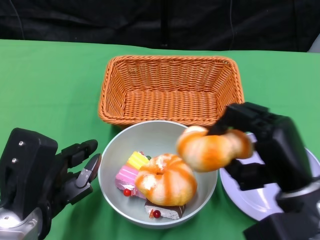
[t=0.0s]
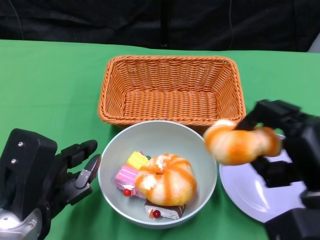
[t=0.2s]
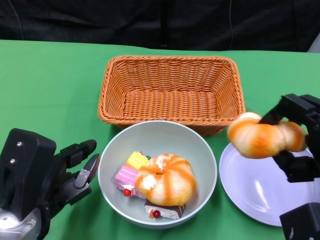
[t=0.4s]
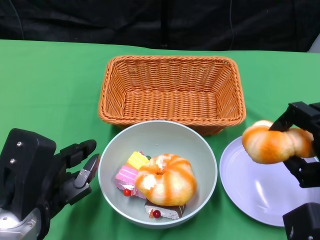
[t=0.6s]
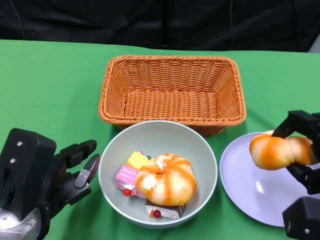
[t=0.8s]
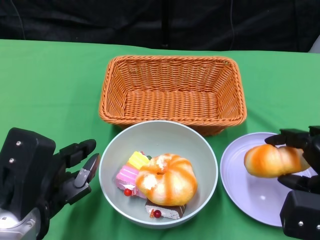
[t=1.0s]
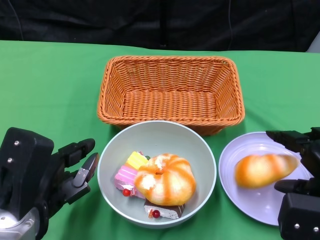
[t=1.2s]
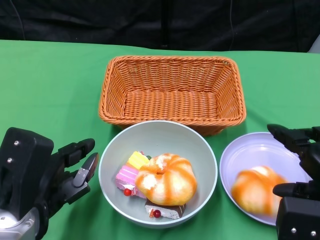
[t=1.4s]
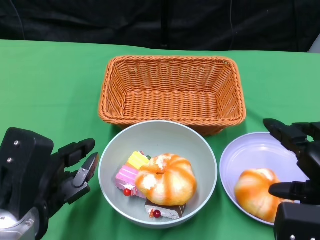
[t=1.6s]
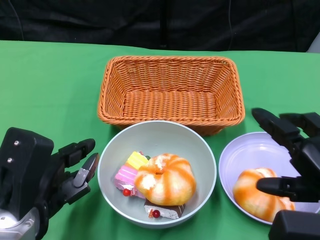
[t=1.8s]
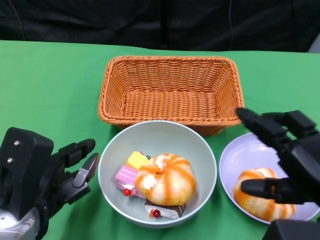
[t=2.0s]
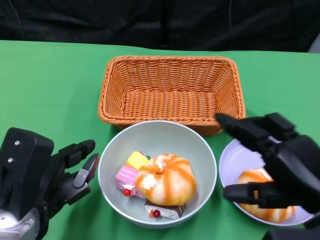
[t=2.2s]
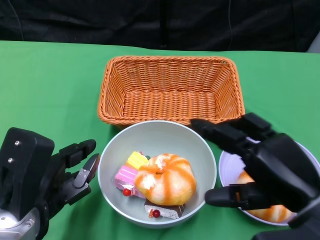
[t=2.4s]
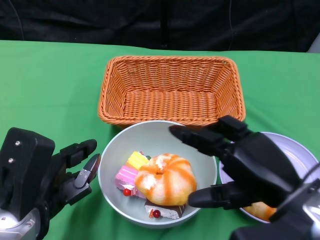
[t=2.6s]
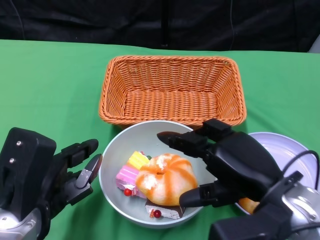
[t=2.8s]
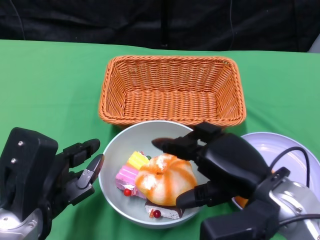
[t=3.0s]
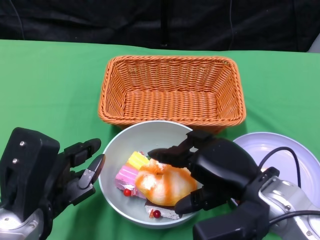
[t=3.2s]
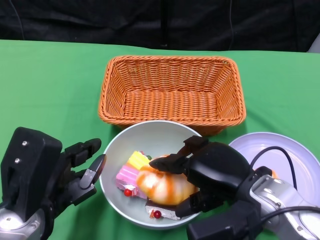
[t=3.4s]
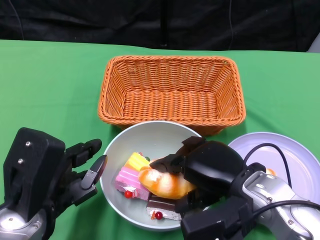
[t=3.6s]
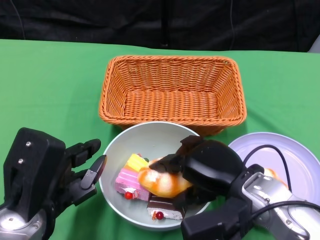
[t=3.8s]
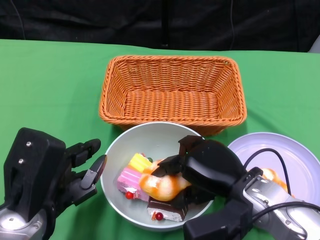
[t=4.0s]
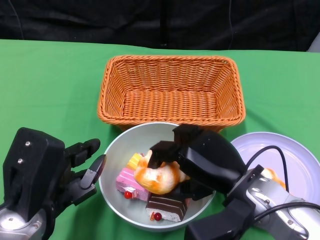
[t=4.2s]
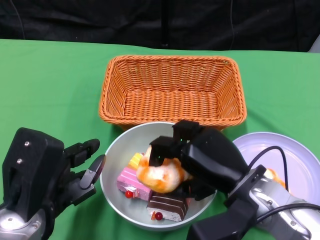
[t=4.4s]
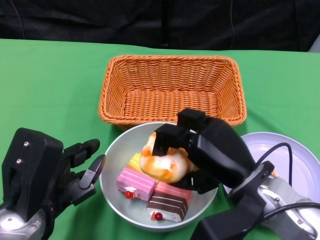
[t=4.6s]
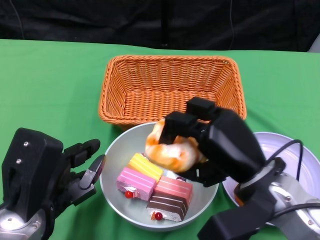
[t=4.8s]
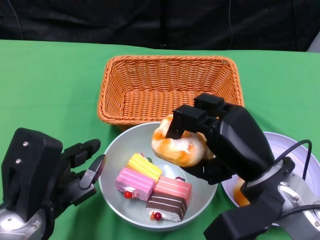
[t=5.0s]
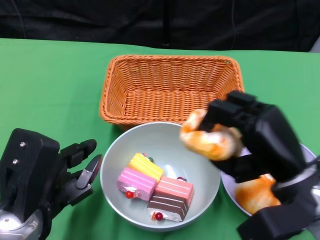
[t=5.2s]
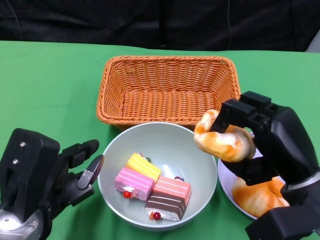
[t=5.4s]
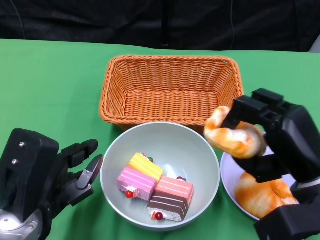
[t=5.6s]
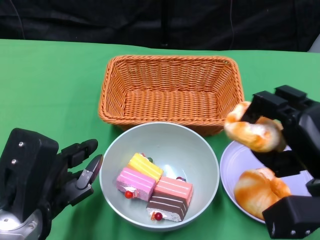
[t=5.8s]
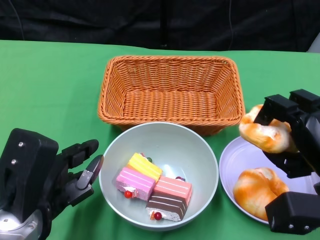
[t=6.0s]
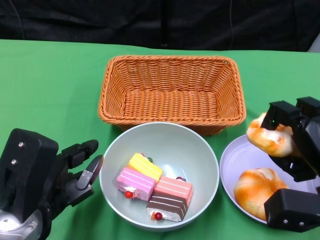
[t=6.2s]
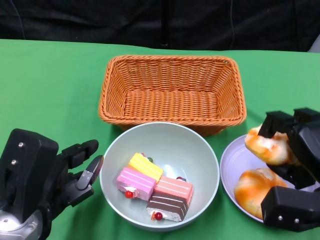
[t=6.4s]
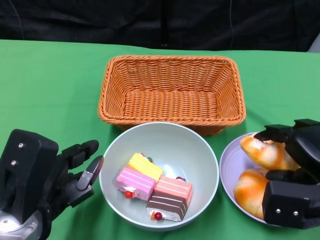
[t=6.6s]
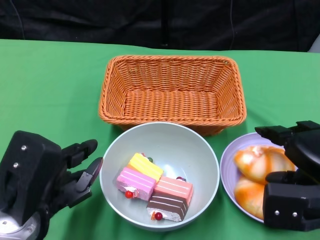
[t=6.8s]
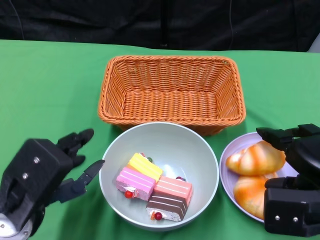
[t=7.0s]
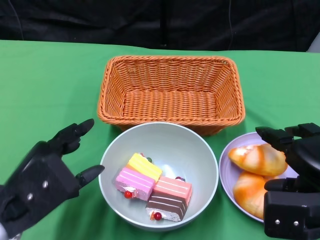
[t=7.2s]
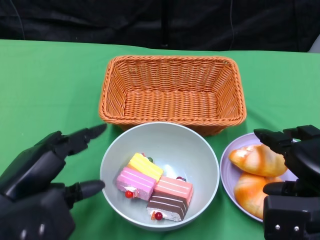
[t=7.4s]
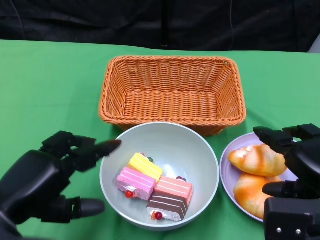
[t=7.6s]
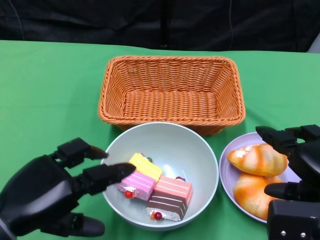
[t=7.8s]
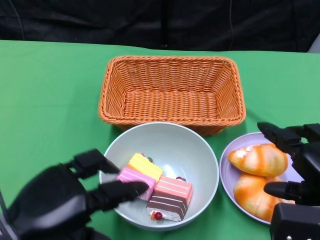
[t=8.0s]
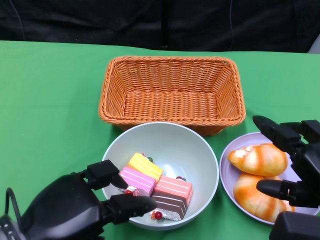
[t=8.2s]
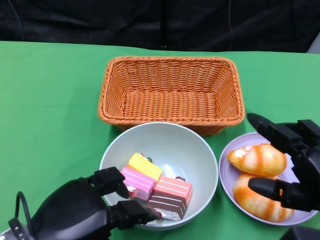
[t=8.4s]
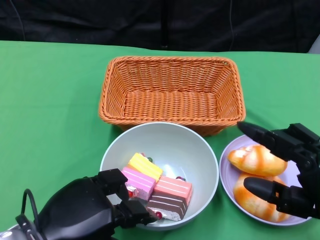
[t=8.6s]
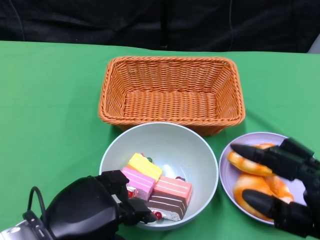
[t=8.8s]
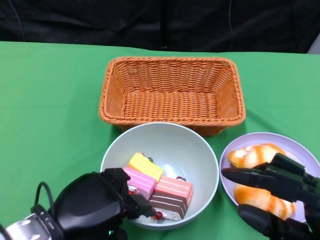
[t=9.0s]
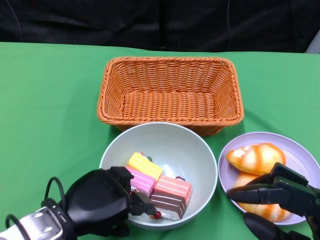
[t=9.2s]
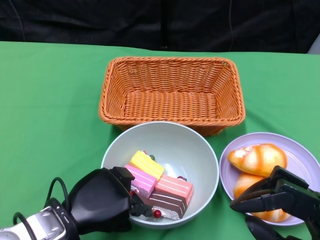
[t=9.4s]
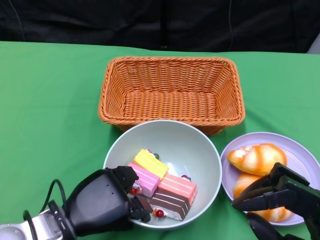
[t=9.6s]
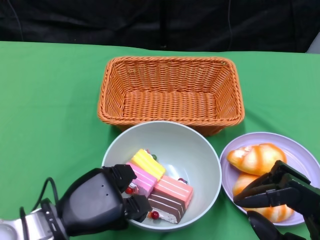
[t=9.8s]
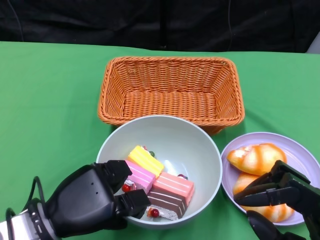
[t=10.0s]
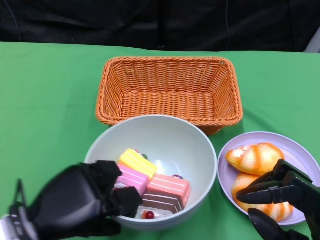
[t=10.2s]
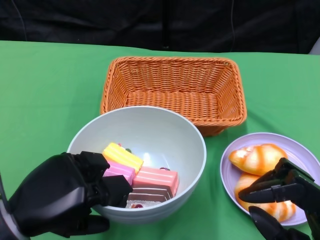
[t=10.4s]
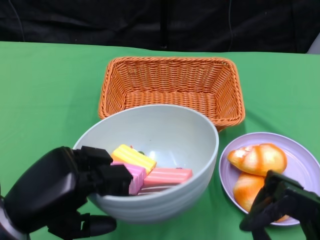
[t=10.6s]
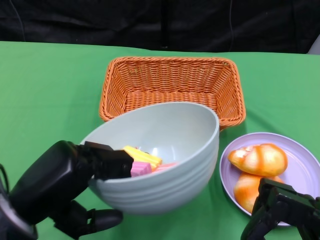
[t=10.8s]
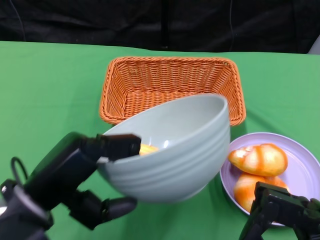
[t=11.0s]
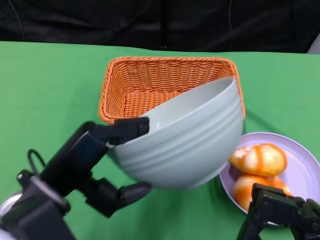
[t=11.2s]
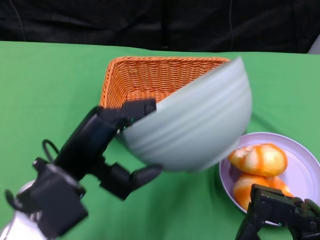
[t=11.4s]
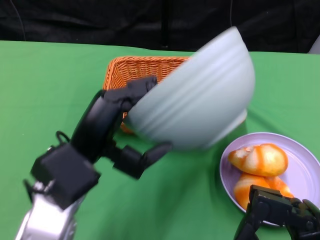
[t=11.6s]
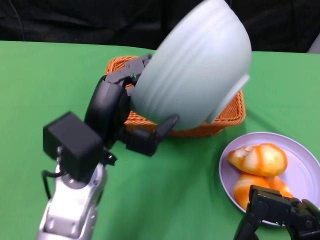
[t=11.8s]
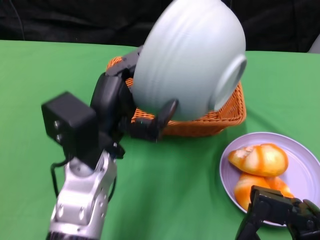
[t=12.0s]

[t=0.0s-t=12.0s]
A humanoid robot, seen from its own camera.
Step, t=0.0s to t=6.8s: Pick up the bread with the right gripper and place it on the plate.
Step, t=7.0s to t=9.6s: Grasp the bowl with the left gripper.
t=0.0s to t=1.6s: The right hand shifts roughly 5 cm to the right.
t=1.6s to t=3.0s: The right hand heads to the left, covering approximately 10 cm.
t=3.0s to t=4.4s: There are only small adjustments of the hands.
t=4.4s to t=6.0s: The right hand is displaced to the right by some 10 cm.
t=7.6s to t=9.0s: The left hand goes roughly 5 cm to the right, while the right hand moves backward, some 10 cm.
t=10.4s to t=12.0s: The left hand is displaced to the right and forward by about 15 cm.

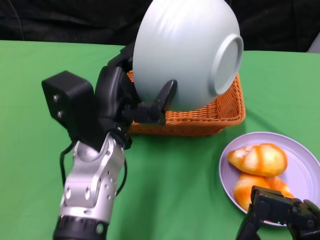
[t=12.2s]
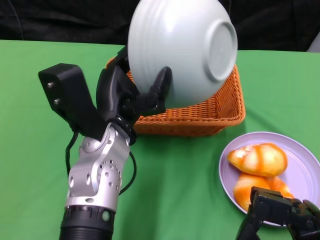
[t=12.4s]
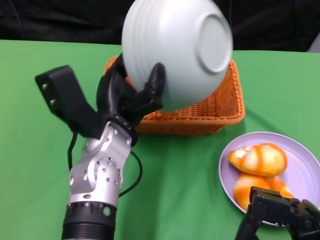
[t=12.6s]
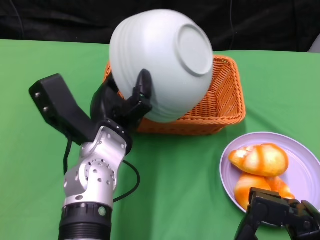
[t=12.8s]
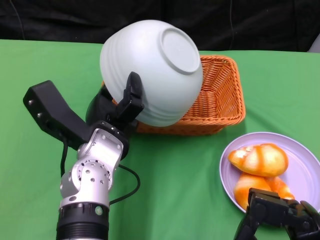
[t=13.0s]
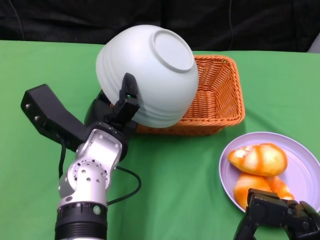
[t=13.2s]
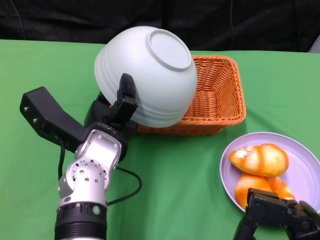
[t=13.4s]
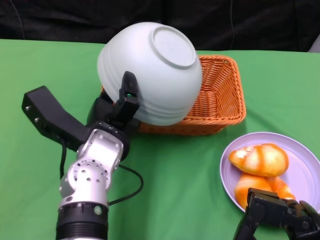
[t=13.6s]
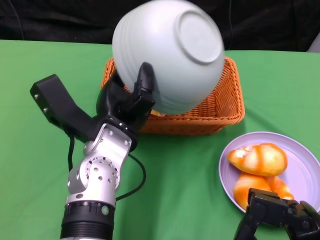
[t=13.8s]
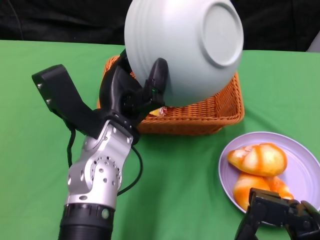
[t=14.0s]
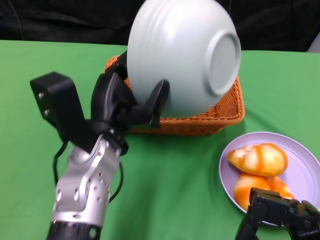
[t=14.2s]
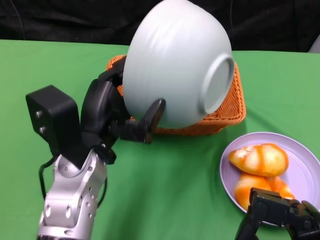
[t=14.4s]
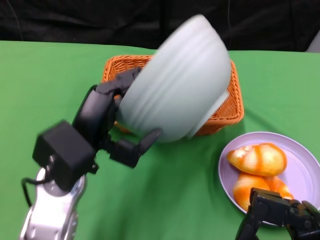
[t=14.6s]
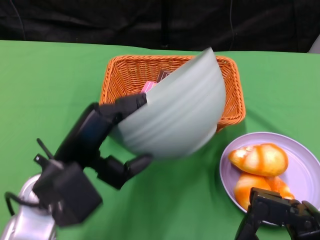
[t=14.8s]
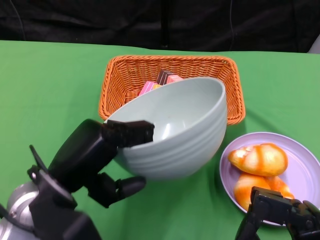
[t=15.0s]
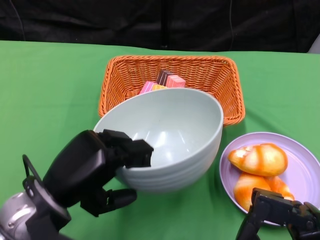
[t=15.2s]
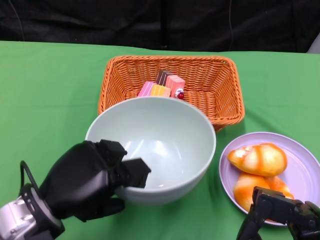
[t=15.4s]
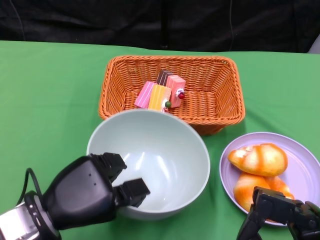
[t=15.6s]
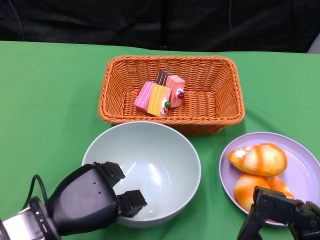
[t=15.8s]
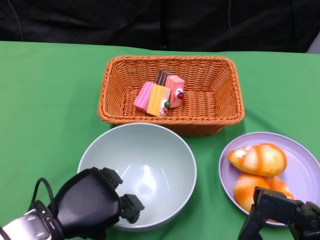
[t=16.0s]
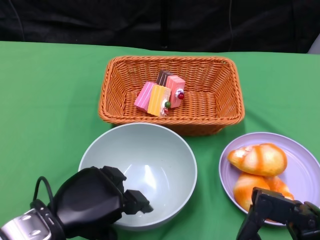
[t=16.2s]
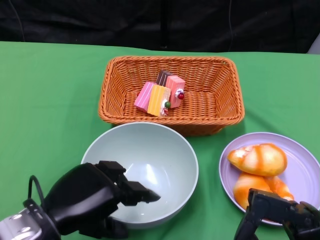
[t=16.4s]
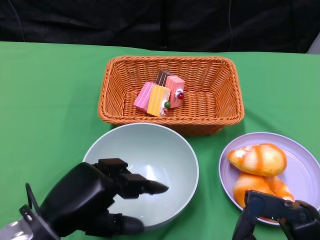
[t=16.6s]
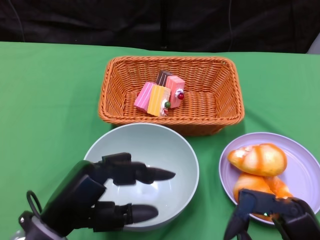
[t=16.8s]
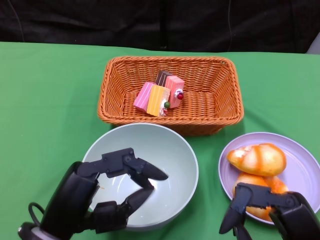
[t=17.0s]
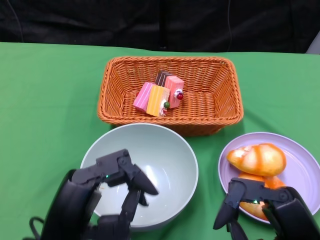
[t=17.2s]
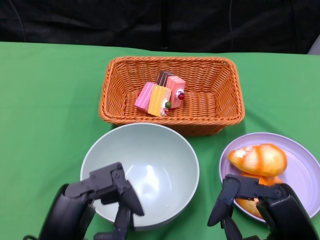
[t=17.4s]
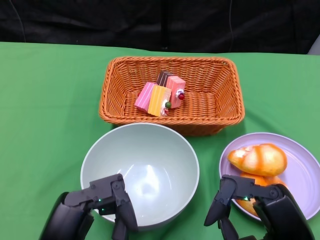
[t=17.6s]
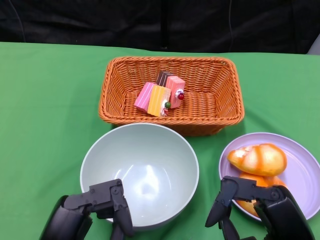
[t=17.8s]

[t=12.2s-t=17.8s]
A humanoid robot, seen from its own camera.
Step, t=13.2s to t=16.0s: Place the bowl on the table with the left gripper.
t=13.6s to t=15.0s: The left hand is displaced to the left and backward by approximately 10 cm.
t=16.4s to t=17.8s: The left hand heads backward, covering about 5 cm.
